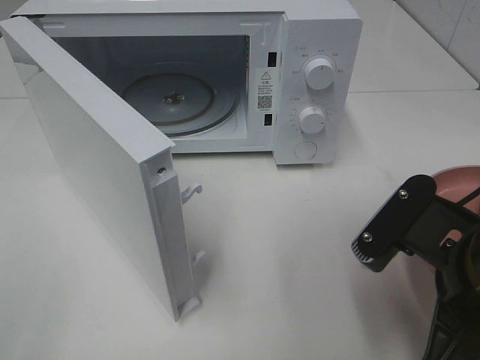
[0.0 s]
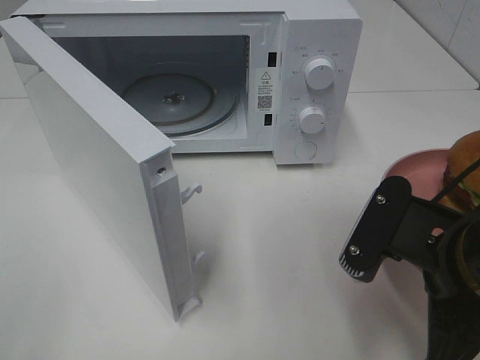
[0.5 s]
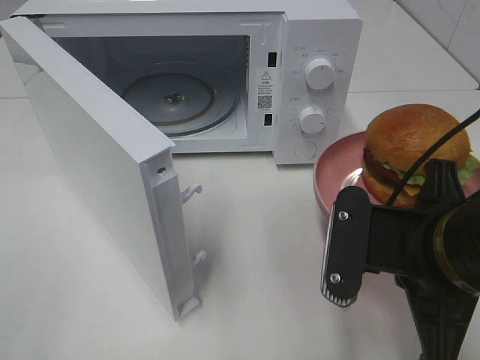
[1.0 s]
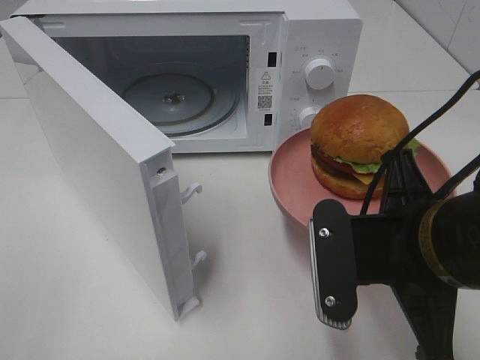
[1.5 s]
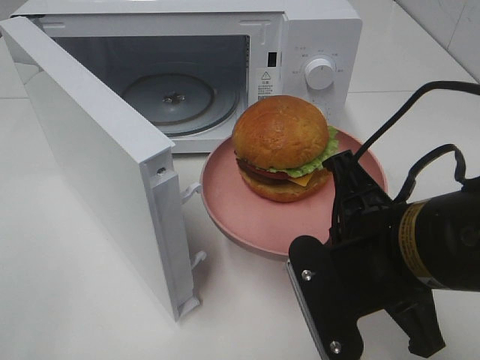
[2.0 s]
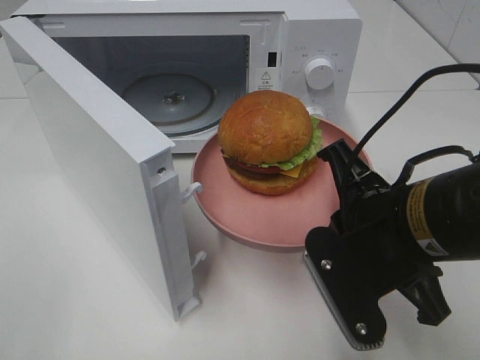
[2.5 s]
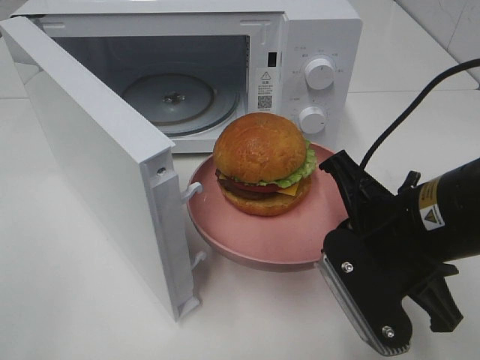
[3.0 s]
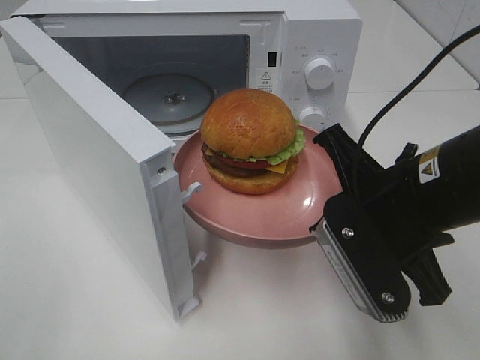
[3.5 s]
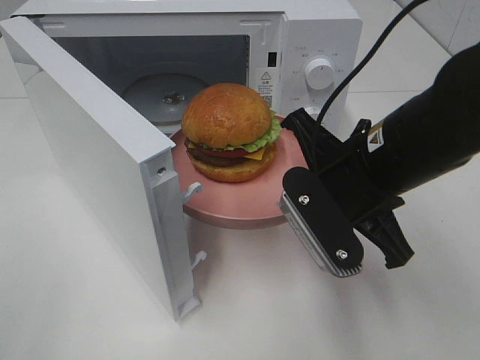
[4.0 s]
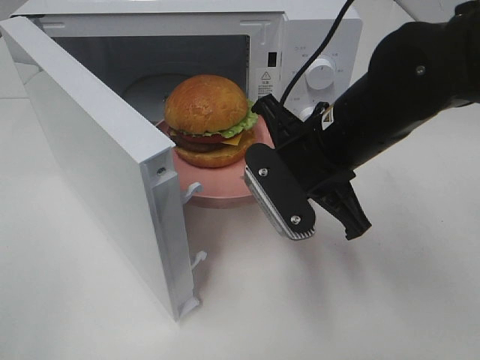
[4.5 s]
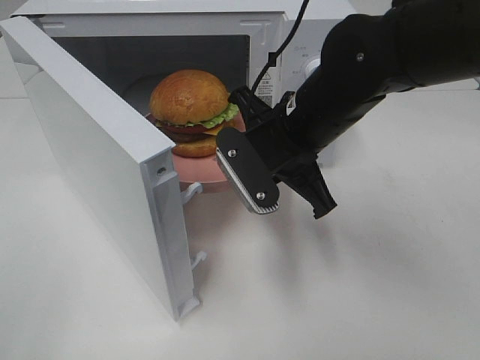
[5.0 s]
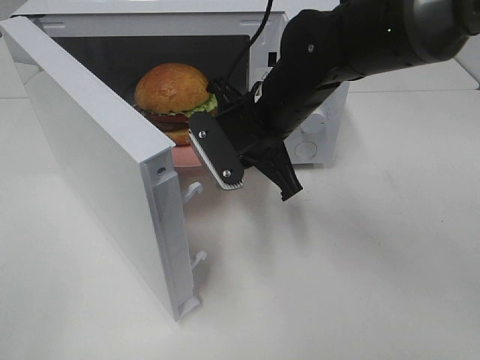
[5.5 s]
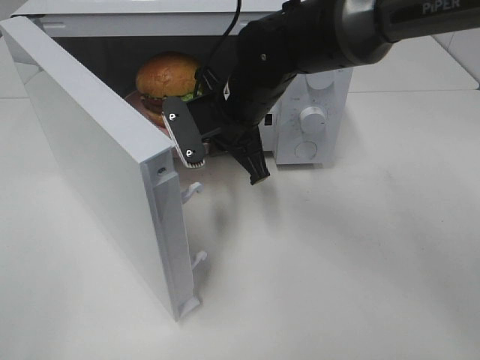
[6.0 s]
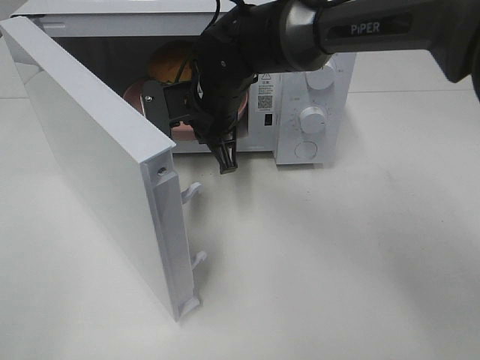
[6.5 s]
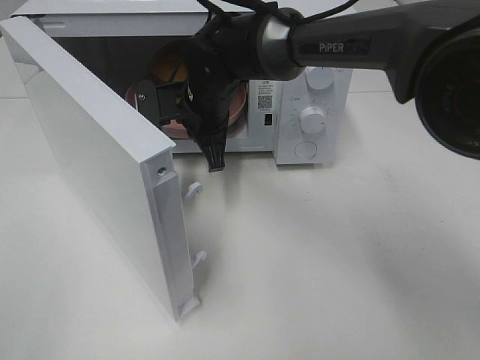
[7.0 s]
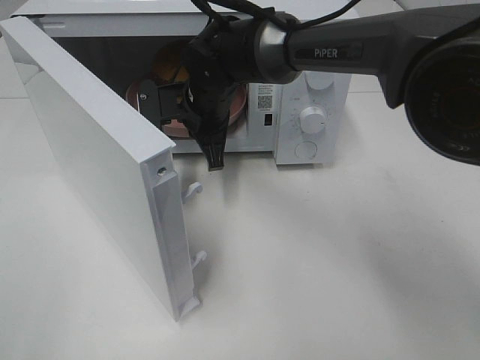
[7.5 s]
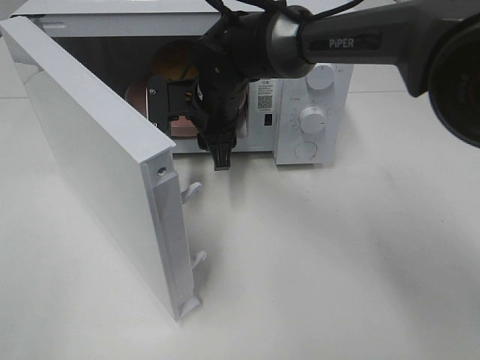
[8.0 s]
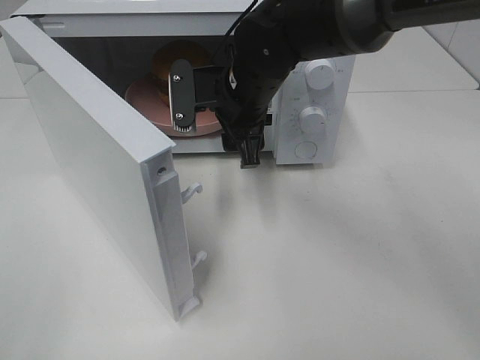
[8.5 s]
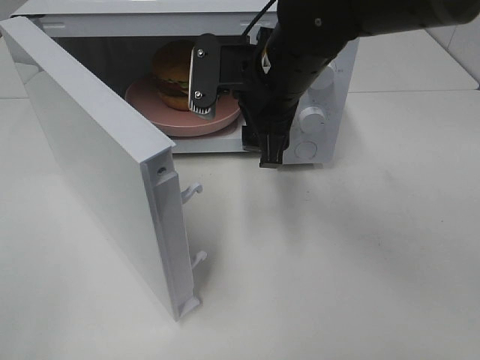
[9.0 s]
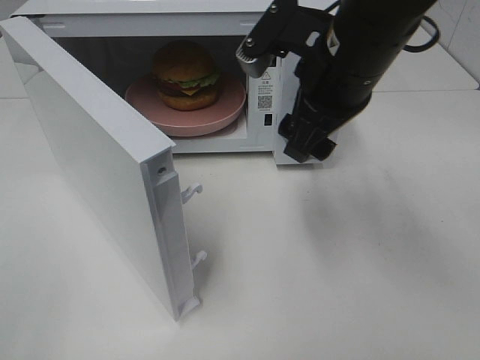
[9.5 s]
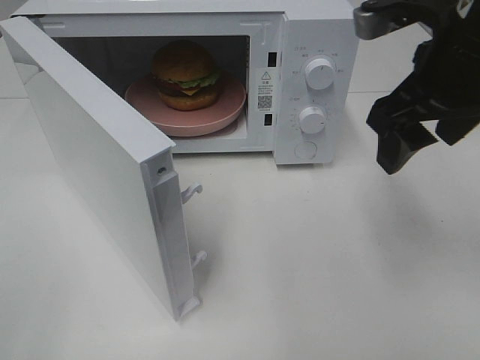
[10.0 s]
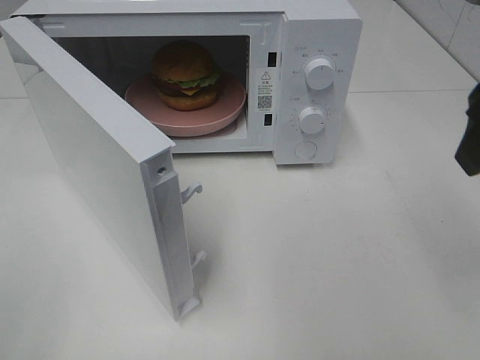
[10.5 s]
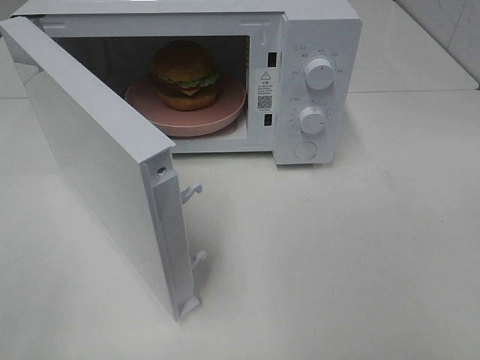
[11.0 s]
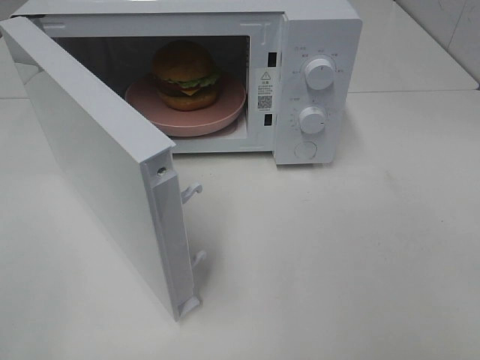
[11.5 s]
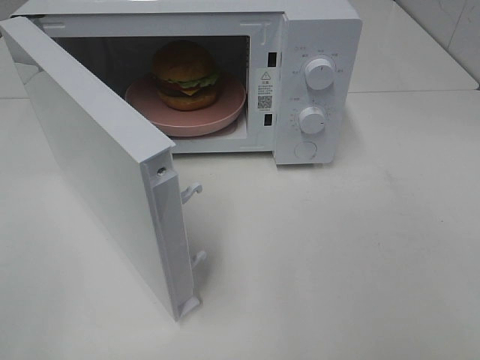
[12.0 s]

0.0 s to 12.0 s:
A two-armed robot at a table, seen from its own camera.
Task of the whole recording: Heat the burger.
Step, 0.0 to 7.5 s: Right hand: place the plate in the microwave.
0.0 to 2.0 s: The right gripper moves roughly 5 cm.
2.0 to 4.0 s: The right gripper travels forward by roughly 10 cm.
4.0 to 6.0 s: The right gripper travels forward and to the left by about 15 cm.
6.0 to 8.0 s: The right gripper moves approximately 5 cm, and opens its fingers.
8.0 to 10.0 s: The right gripper moves to the right, backward and upward, about 30 cm.
10.0 to 12.0 s: The right gripper moves backward and to the right, roughly 30 cm.

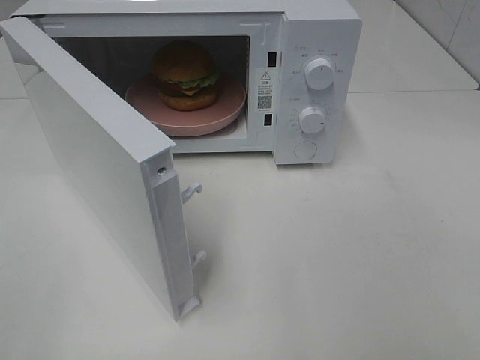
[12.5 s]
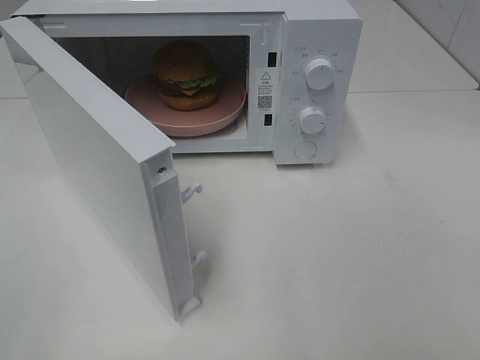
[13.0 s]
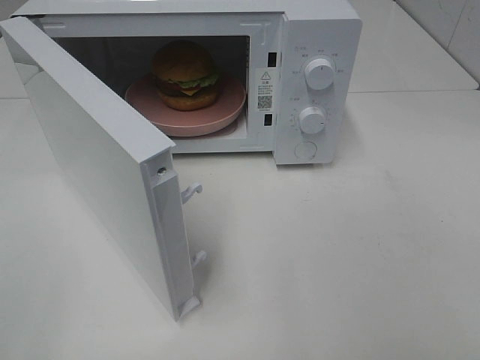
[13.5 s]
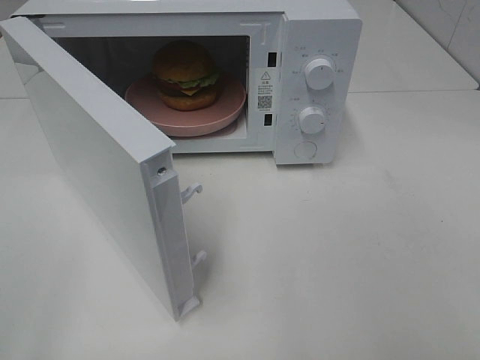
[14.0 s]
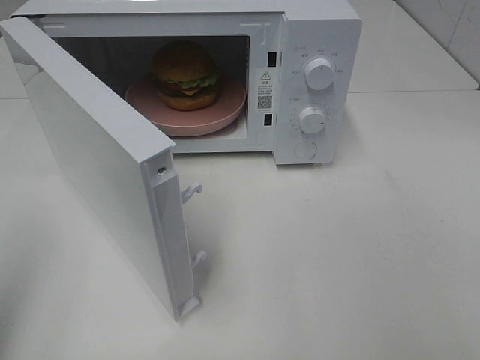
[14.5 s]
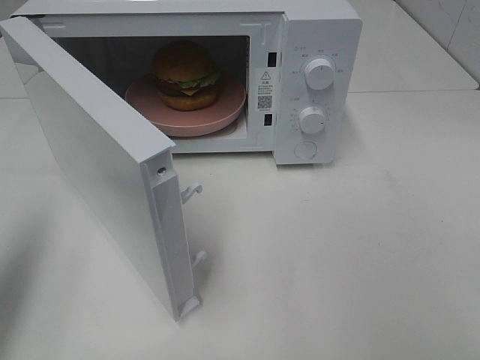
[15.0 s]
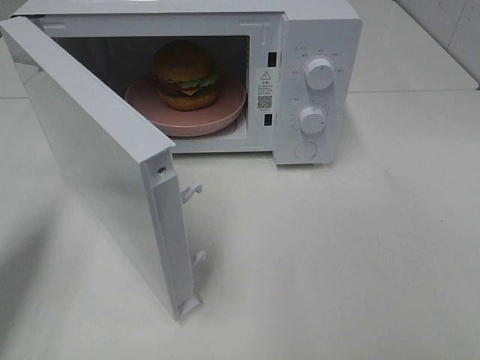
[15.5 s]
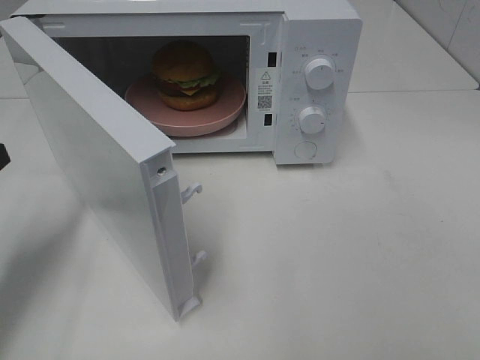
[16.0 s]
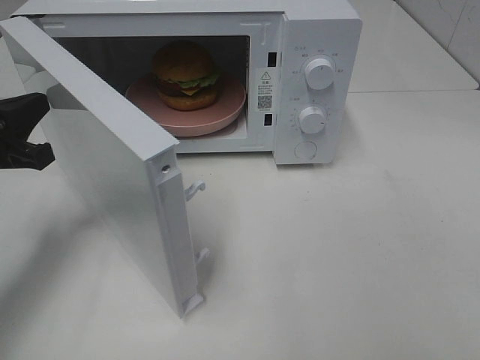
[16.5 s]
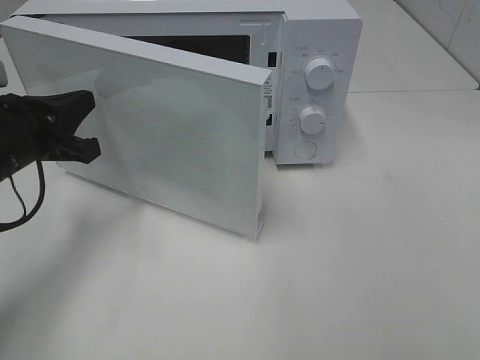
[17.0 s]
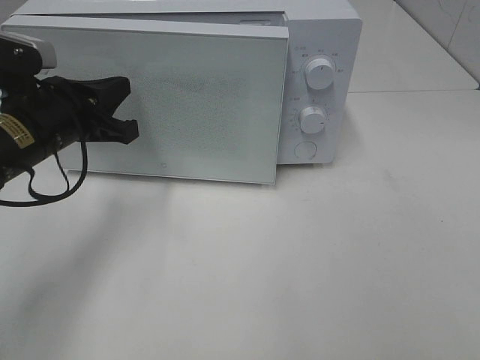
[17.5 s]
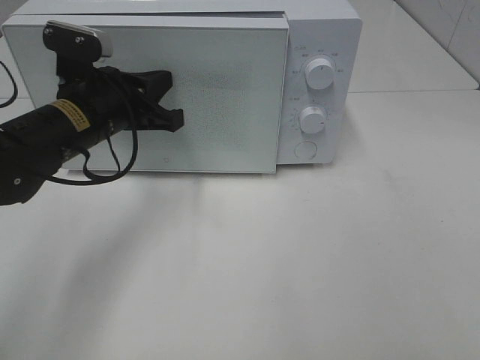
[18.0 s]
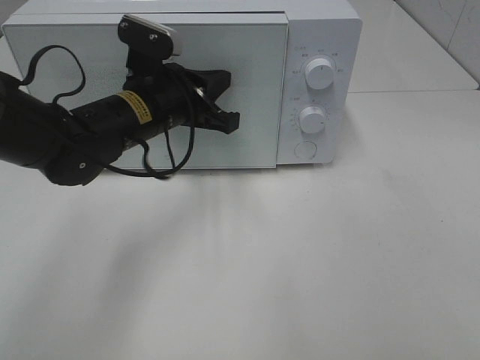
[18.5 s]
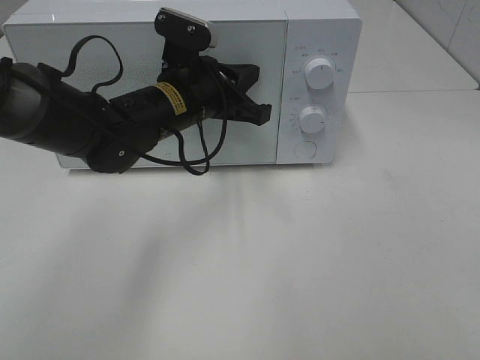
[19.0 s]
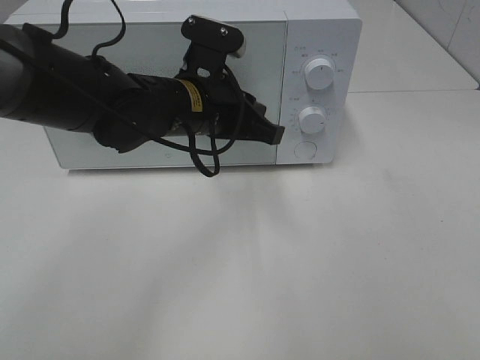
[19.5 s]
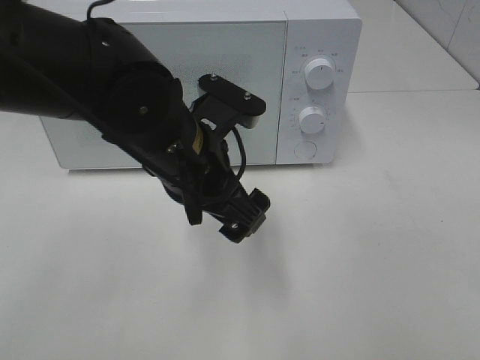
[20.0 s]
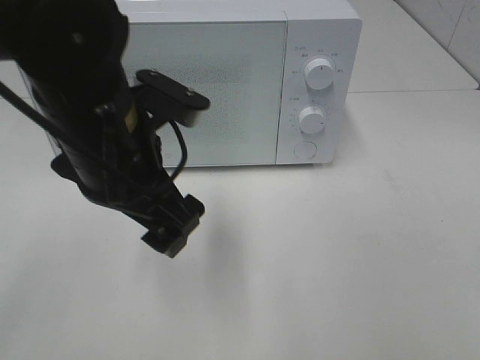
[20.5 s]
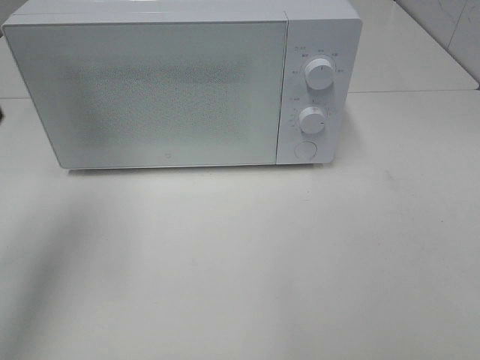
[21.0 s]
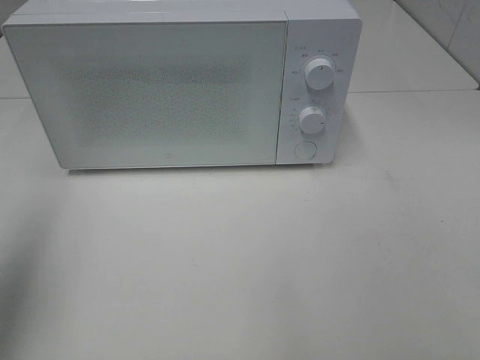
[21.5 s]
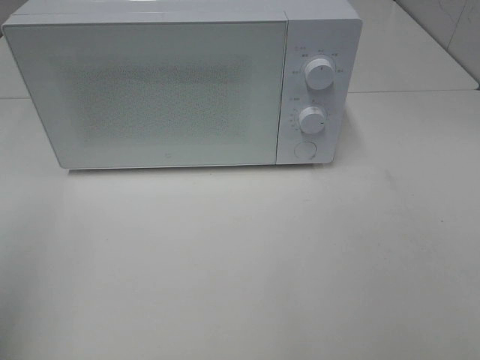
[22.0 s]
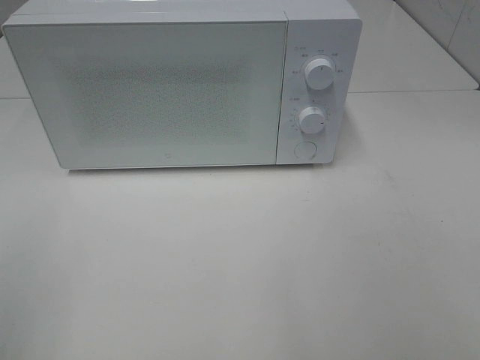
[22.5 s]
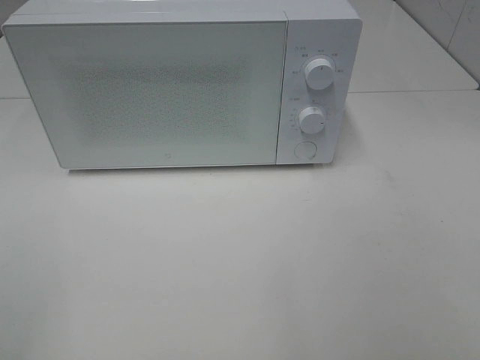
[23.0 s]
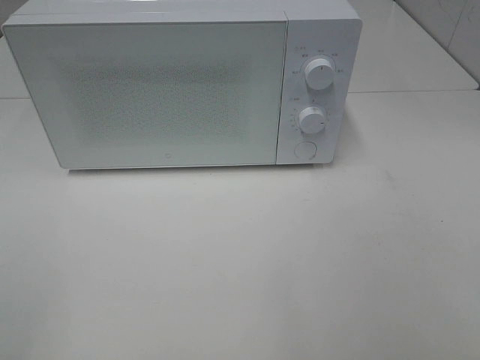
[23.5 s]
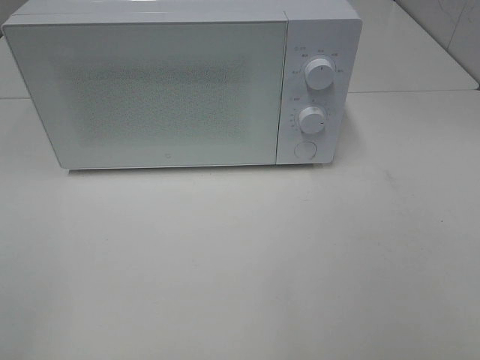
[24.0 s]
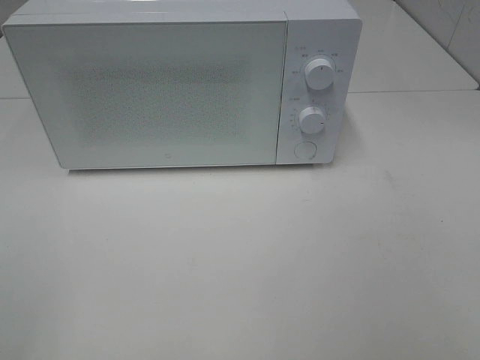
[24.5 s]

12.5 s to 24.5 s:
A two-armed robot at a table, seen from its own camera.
Task of the whole recording: Heat the burger.
Step, 12.5 to 19.0 s: Left hand: close the microwave door.
14.5 to 16.5 s: The left gripper heads forward and downward, covering roughly 25 cm.
16.5 to 18.5 s: The left gripper moves to the right and forward, approximately 20 cm.
18.5 to 20.5 s: The left gripper moves backward and upward, roughly 15 cm, and opens up.
20.5 to 22.5 s: The left gripper moves to the left and backward, some 30 cm.

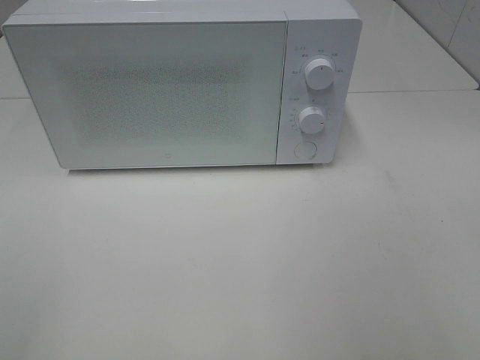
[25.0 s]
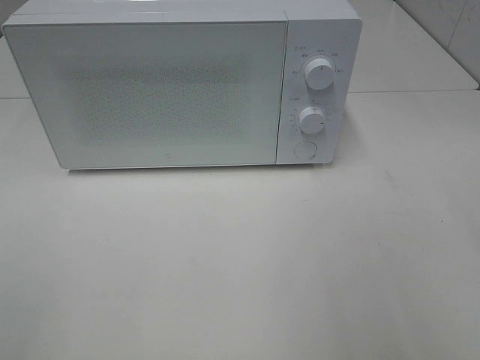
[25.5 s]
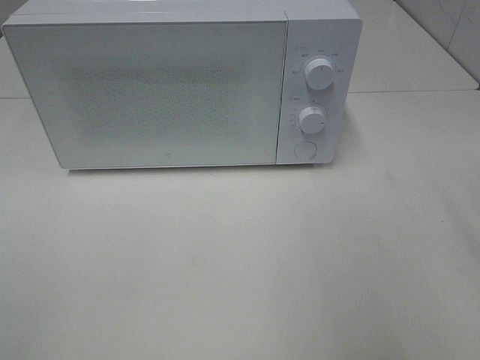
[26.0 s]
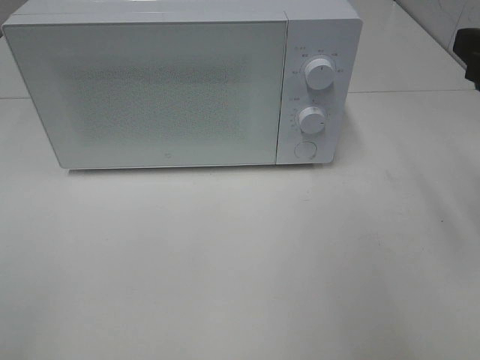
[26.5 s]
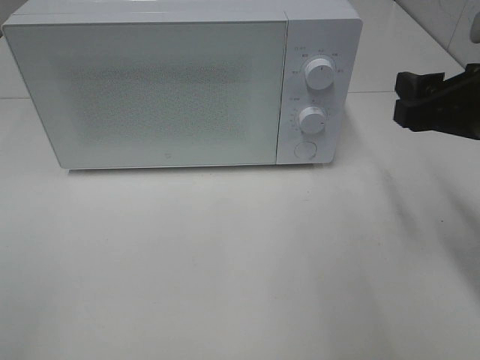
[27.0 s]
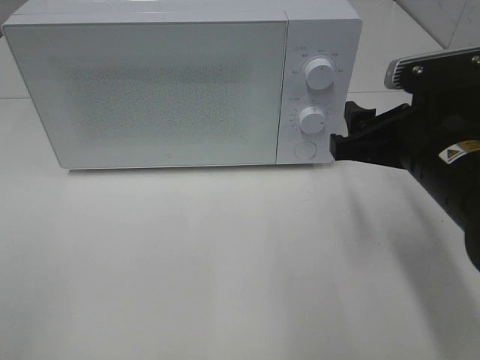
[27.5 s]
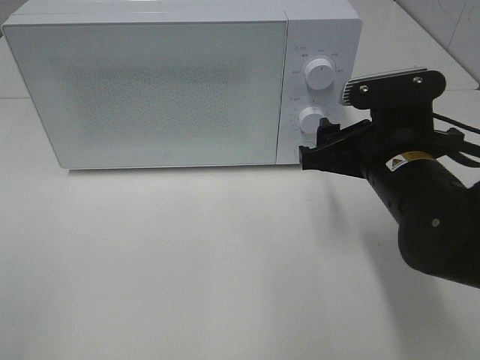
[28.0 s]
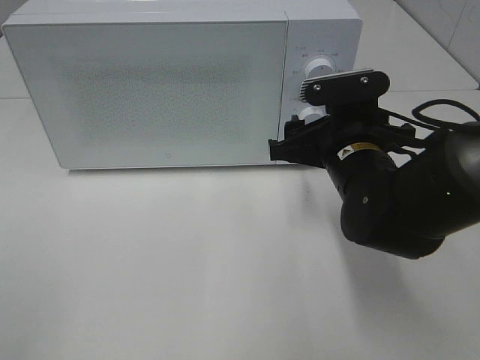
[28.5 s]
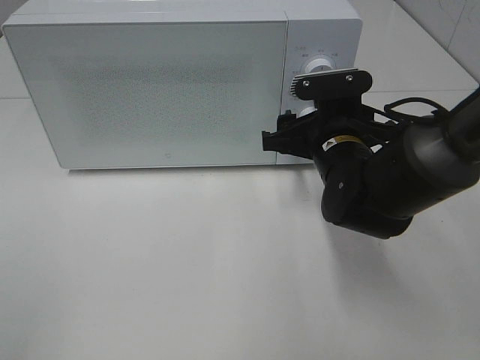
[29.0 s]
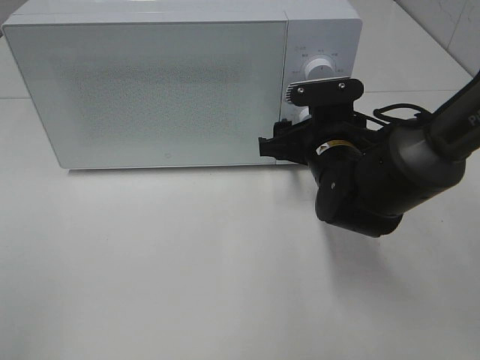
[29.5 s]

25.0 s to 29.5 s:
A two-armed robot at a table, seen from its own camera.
Task of the whole recording: Heat the burger.
25.0 to 27.0 s: The right gripper shifts some 20 cm forward and downward.
27.0 to 29.5 s: The right gripper is displaced to the left, downward and forward by about 20 cm.
